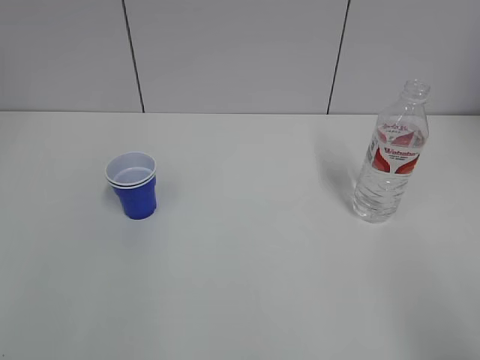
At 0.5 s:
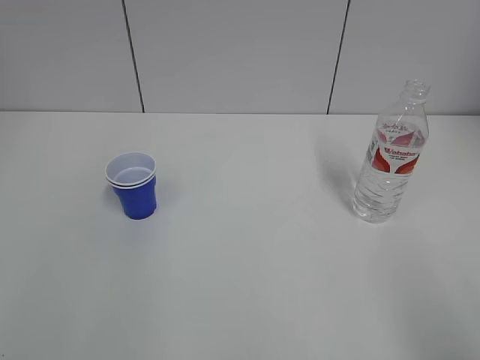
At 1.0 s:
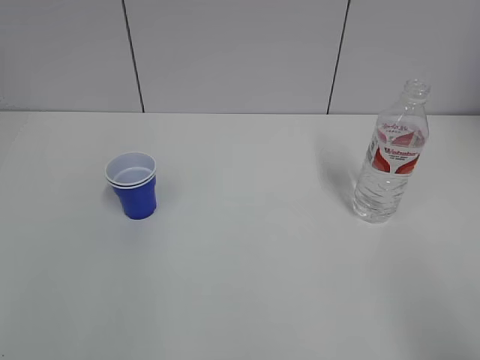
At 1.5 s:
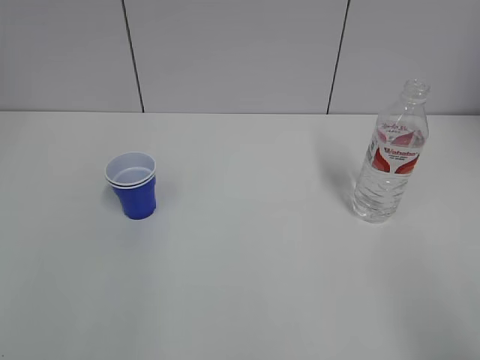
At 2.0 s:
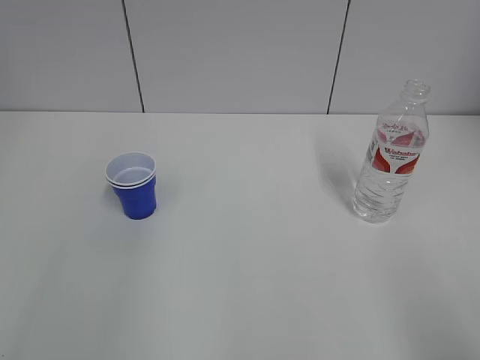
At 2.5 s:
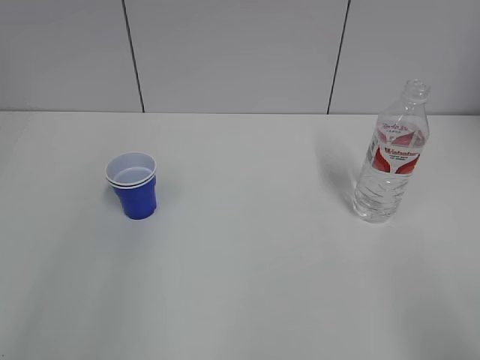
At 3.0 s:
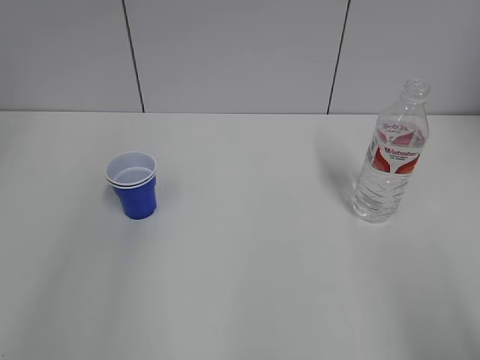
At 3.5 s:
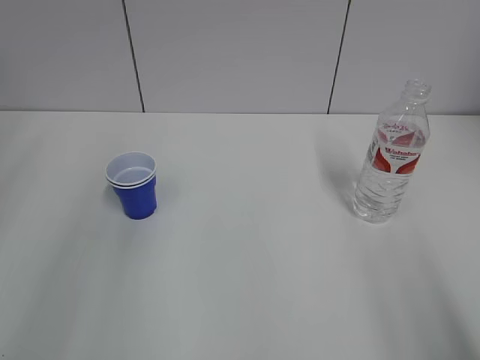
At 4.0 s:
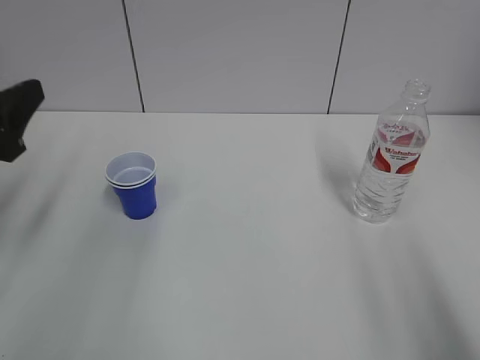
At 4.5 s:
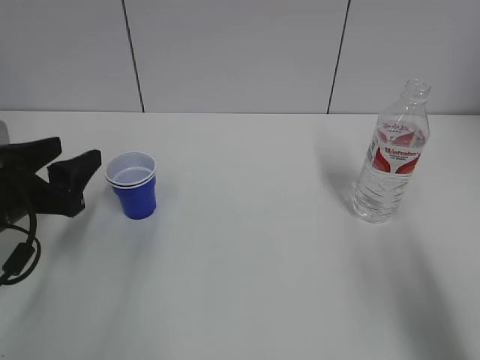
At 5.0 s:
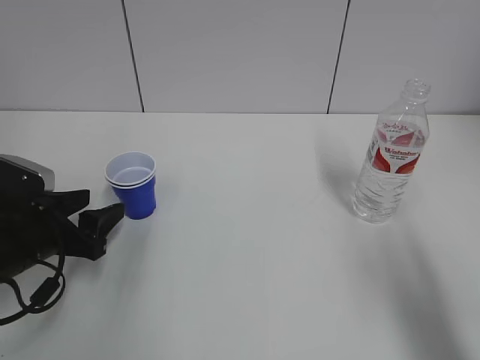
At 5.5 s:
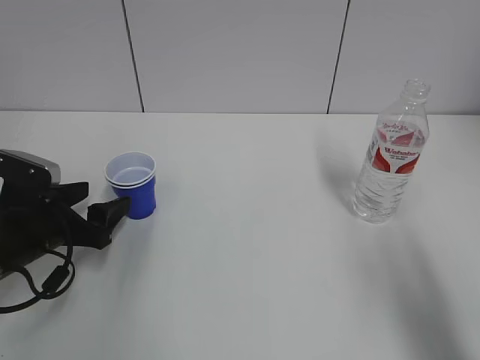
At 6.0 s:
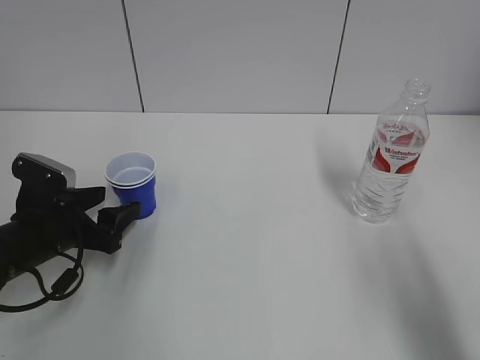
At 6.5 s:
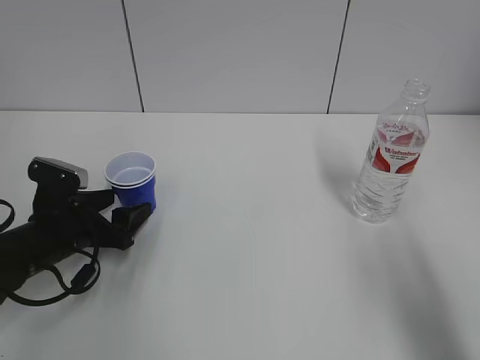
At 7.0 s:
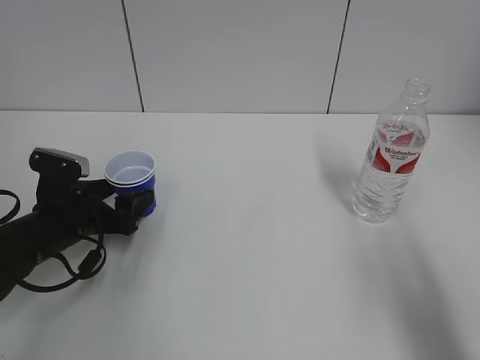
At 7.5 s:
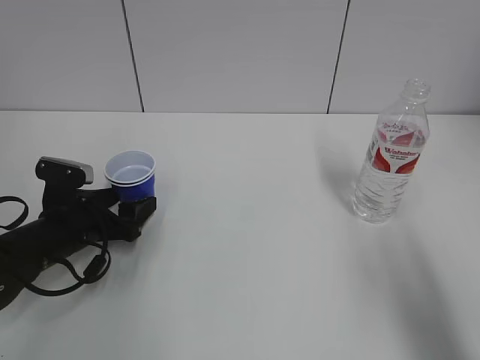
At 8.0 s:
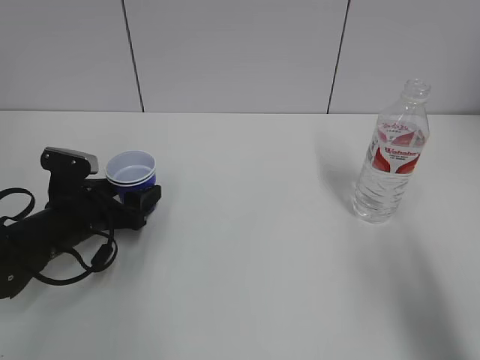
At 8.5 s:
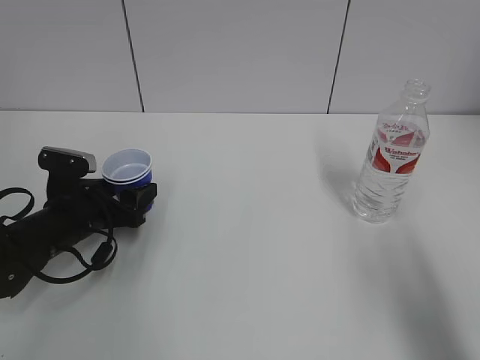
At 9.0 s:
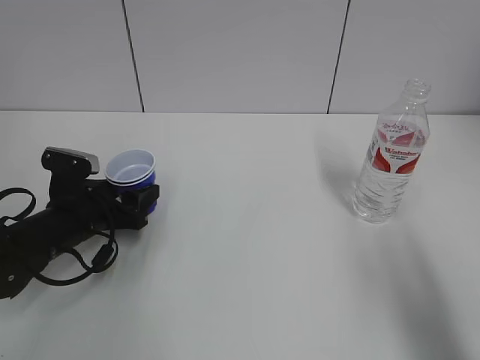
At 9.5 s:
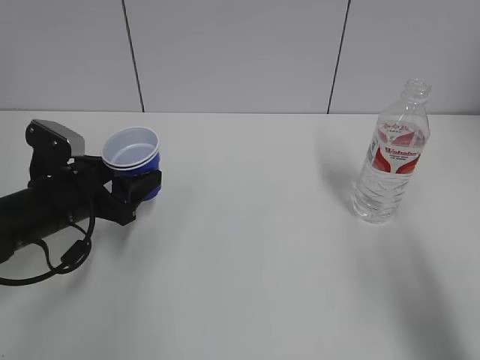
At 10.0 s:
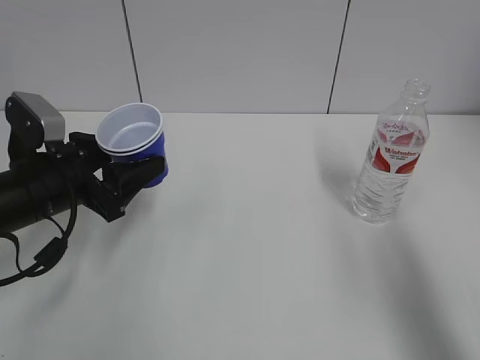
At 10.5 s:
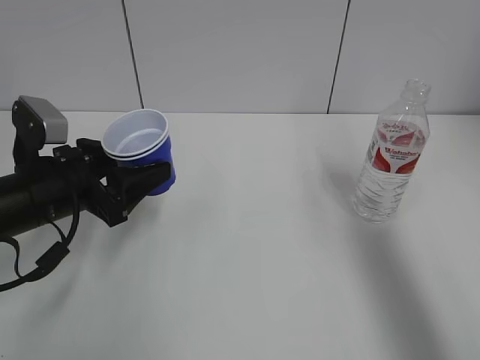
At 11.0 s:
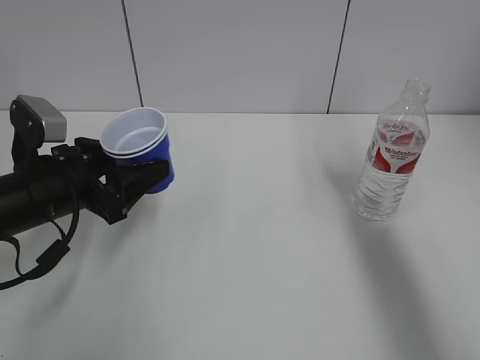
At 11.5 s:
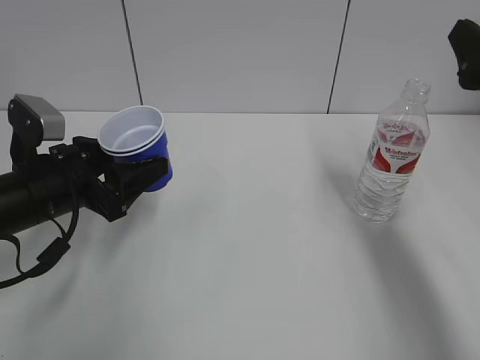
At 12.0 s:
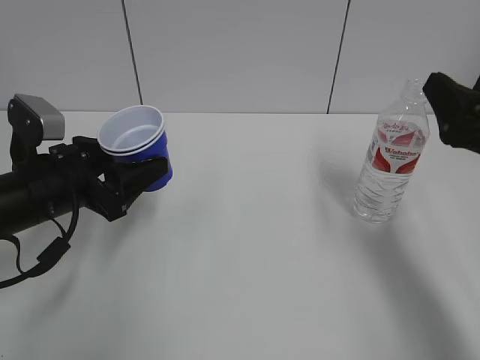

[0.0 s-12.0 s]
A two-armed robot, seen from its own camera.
Step, 0.0 to 8.5 s: Grab the paper cup with the left hand.
2.0 to 4.0 s: The left gripper is displaced forward and downward by approximately 25 cm.
4.0 to 6.0 s: The left gripper moves downward, some 15 cm.
6.0 to 8.0 s: There are only small adjustments of the grippers.
8.0 to 10.0 s: The left gripper moves upward, roughly 10 cm, and closes.
10.0 to 12.0 s: The right gripper heads forward and downward, covering some 15 cm.

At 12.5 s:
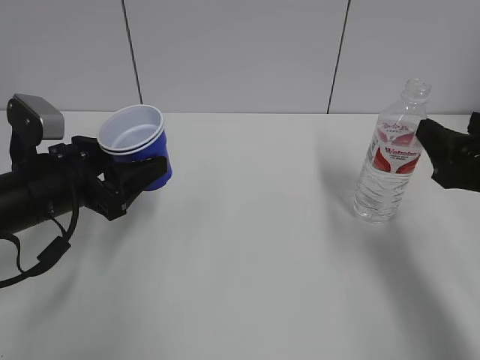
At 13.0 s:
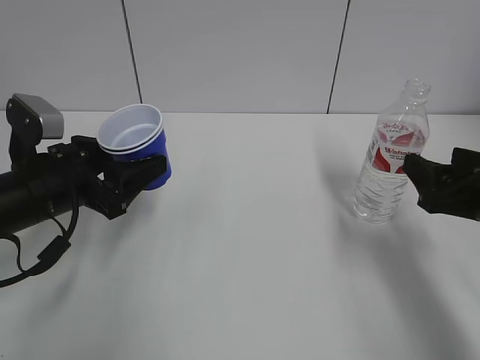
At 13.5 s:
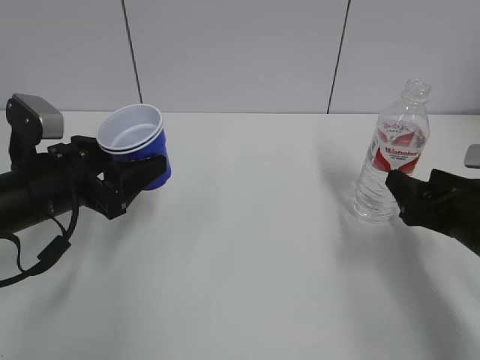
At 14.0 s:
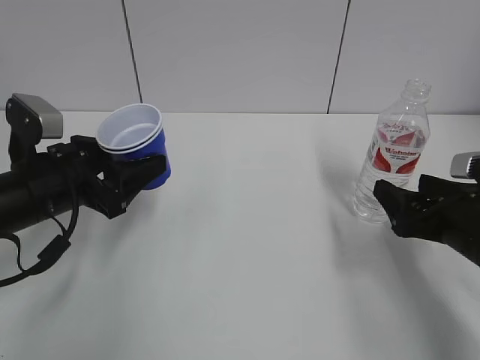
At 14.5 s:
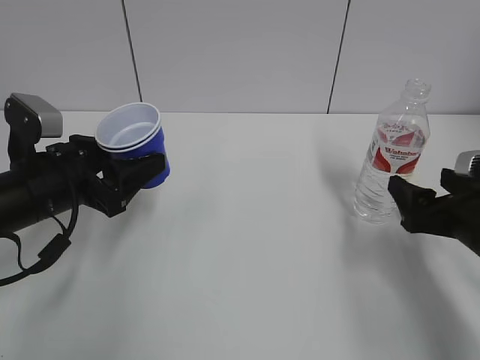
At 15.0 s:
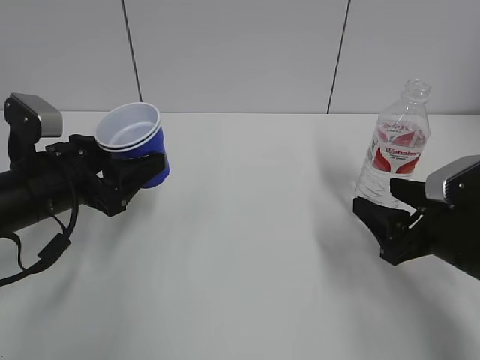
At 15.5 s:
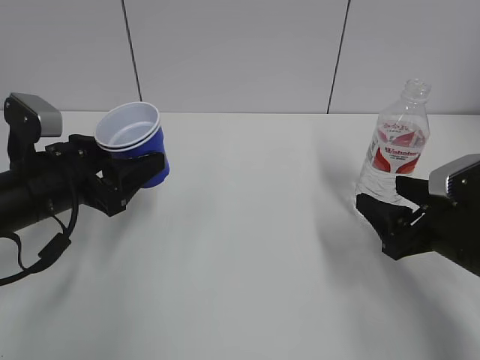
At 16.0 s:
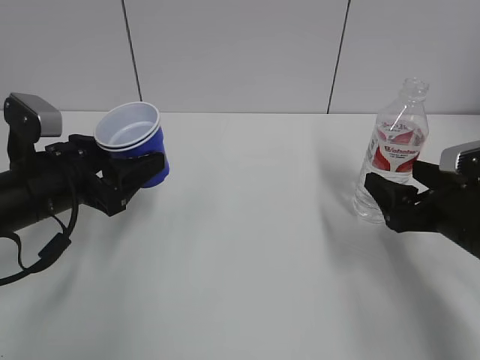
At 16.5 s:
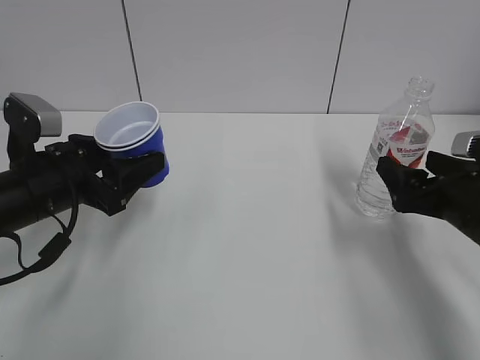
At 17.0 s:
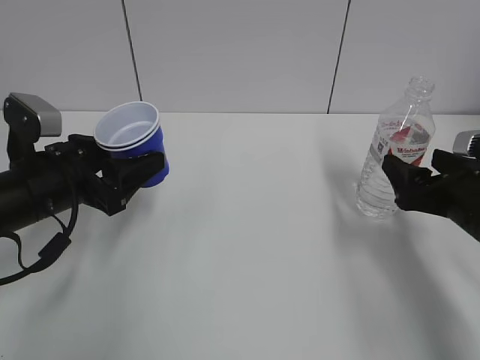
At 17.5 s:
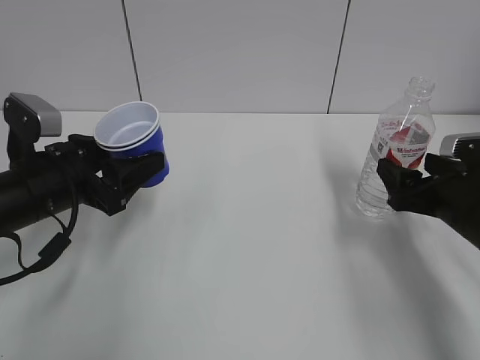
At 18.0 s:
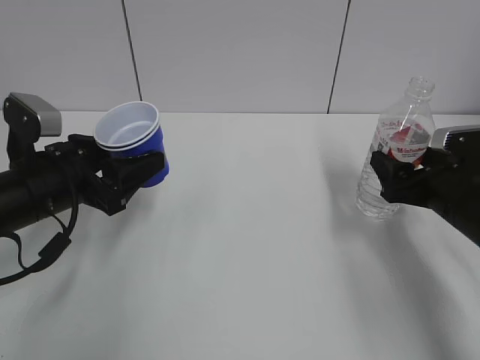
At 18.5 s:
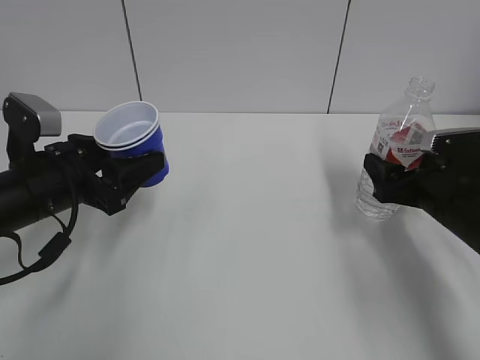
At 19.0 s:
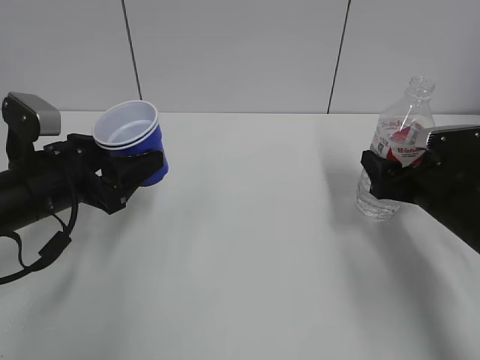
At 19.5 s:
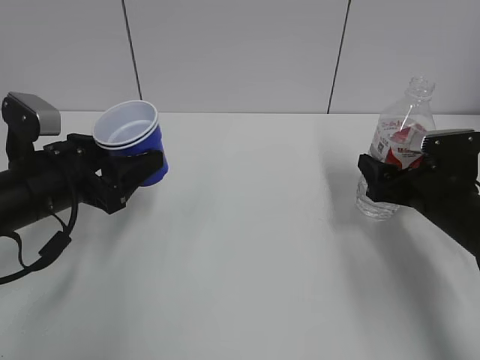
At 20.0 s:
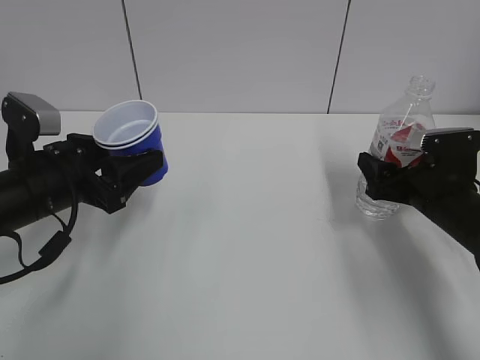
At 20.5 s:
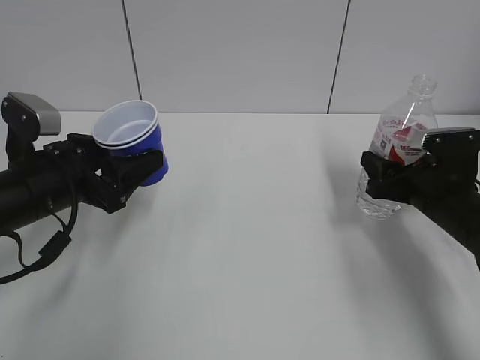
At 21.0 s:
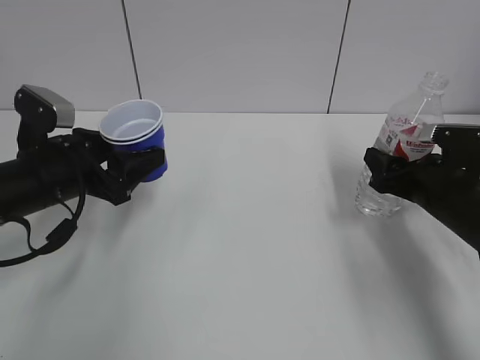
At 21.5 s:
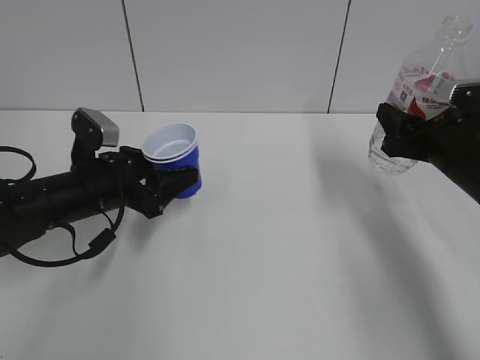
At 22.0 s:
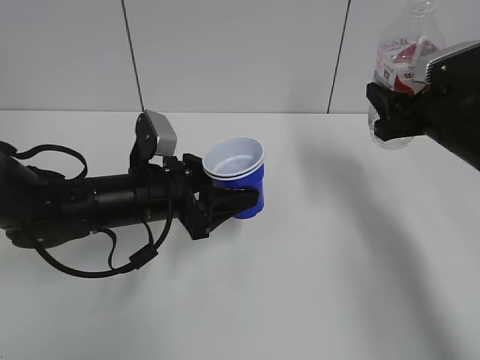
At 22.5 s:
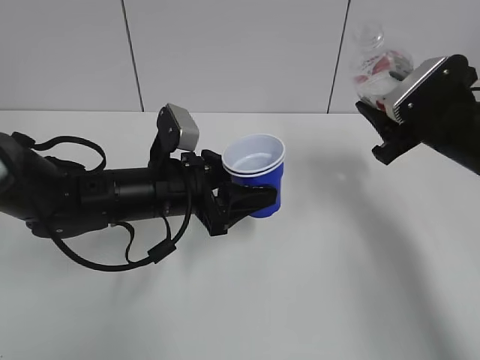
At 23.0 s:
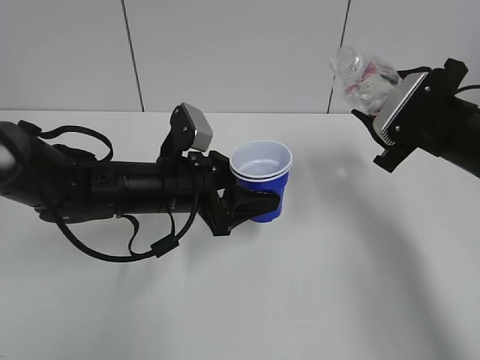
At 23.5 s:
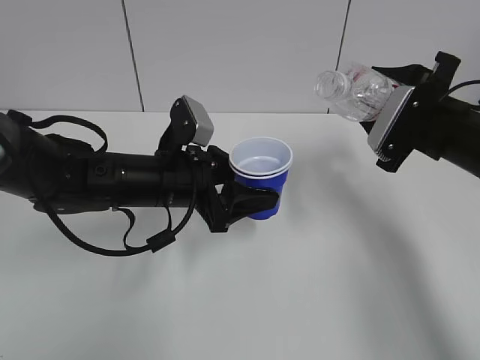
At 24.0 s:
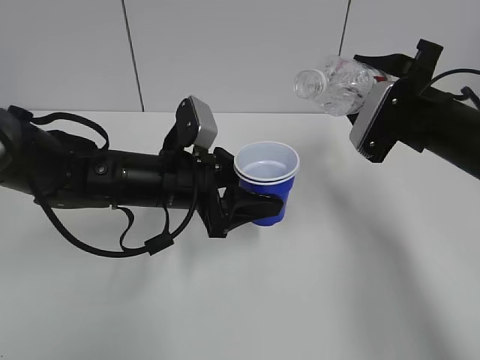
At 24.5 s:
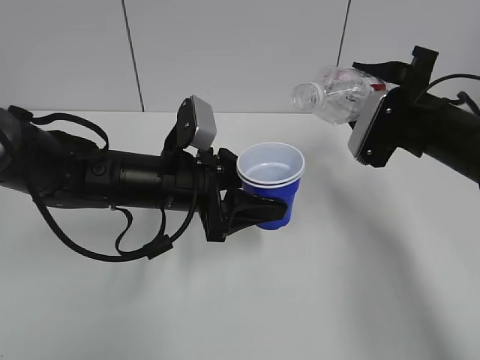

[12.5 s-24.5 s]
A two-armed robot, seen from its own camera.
Step, 12.5 to 20.5 s: Grab the water bottle with the right hand.
12.5 to 14.5 s: The right gripper travels downward by about 10 cm, and opens up.
14.5 to 16.5 s: The right gripper closes, then reopens.
16.5 to 18.5 s: The right gripper changes place by approximately 5 cm.
18.5 to 20.5 s: The right gripper closes up.
20.5 to 22.5 s: The right gripper heads upward, covering approximately 10 cm, while the left gripper travels to the right by some 10 cm.

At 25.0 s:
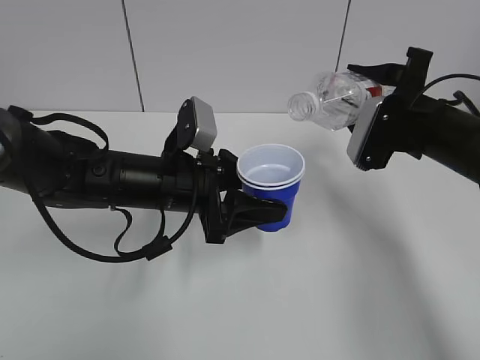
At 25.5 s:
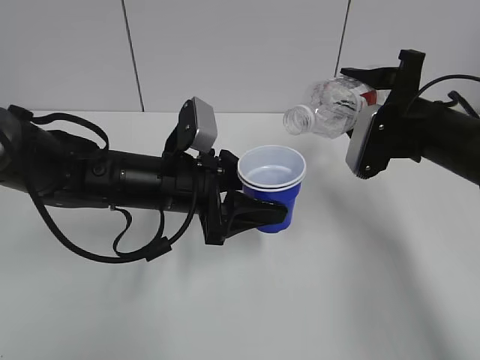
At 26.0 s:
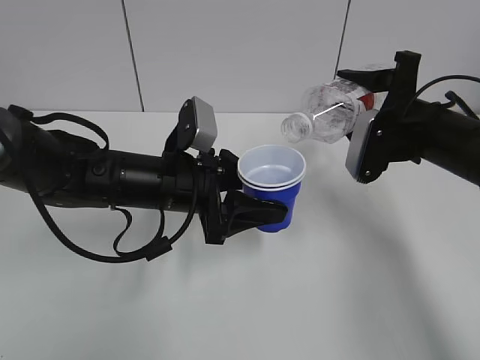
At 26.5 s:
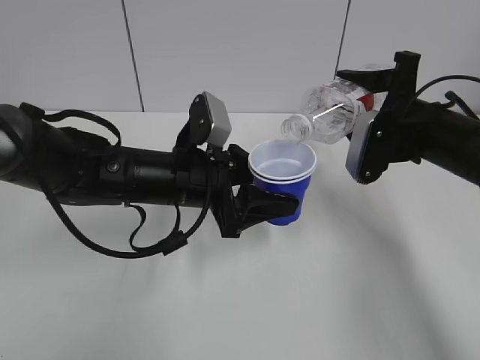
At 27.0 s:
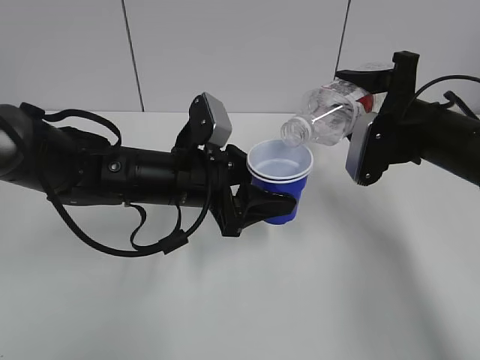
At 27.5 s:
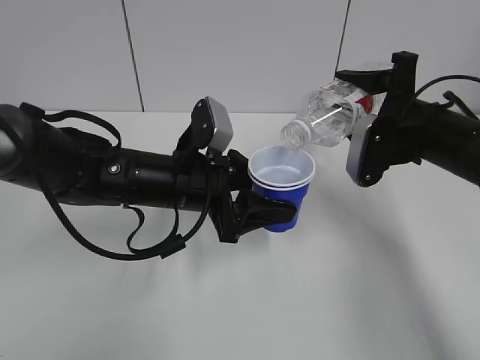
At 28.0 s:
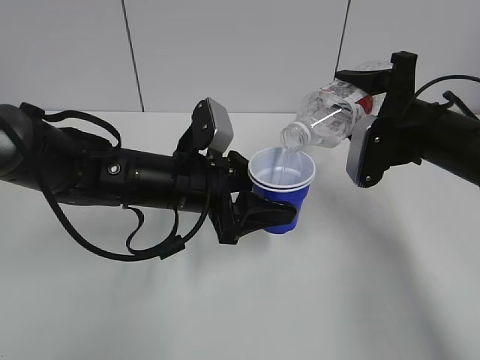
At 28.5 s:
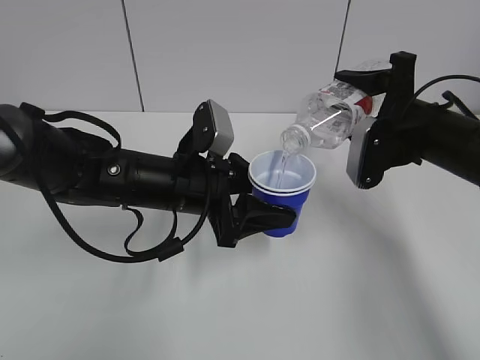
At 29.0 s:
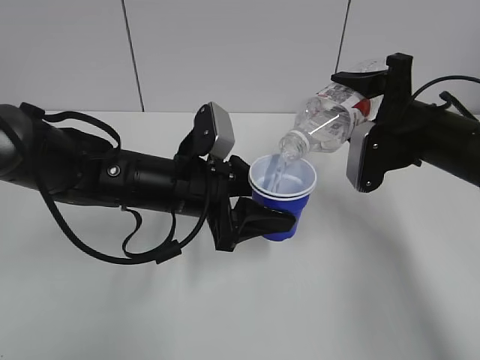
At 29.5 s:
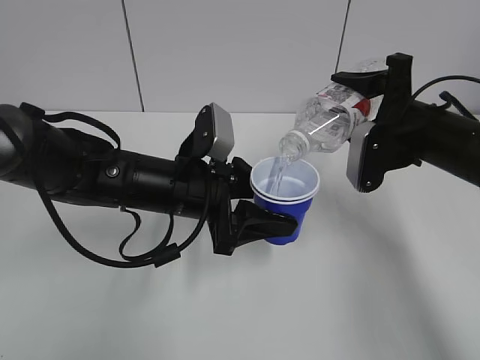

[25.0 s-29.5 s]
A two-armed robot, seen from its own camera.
Step, 25.0 to 27.5 s: Lift the paper cup with the left hand.
25.0 to 29.5 s: The grippers make only small movements.
